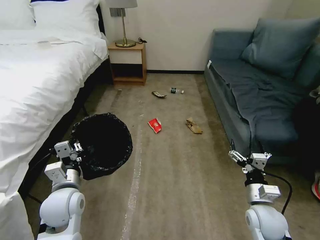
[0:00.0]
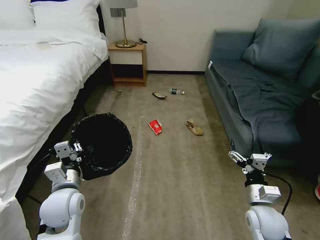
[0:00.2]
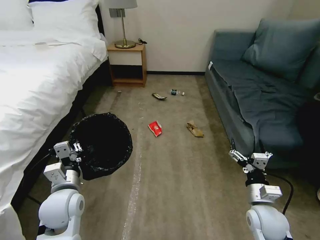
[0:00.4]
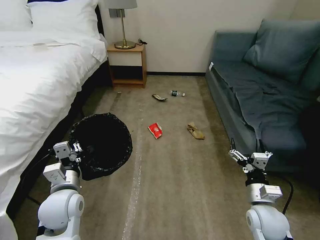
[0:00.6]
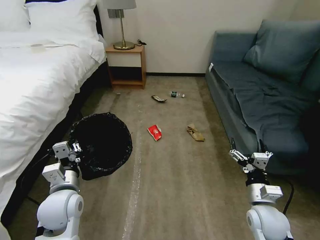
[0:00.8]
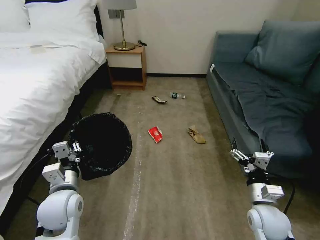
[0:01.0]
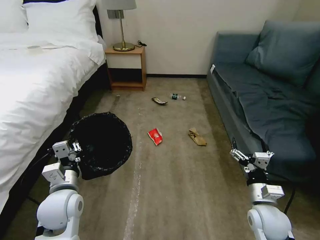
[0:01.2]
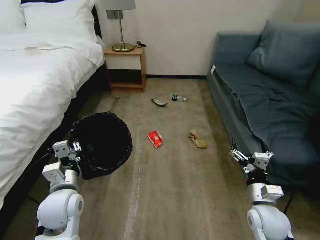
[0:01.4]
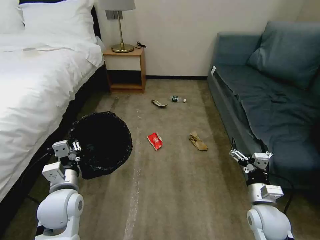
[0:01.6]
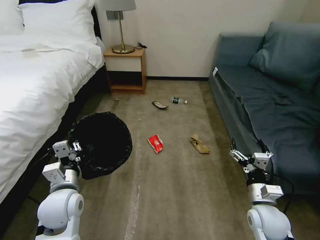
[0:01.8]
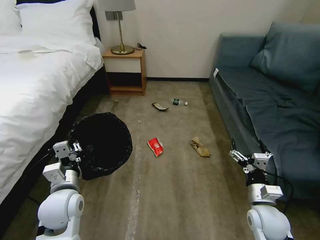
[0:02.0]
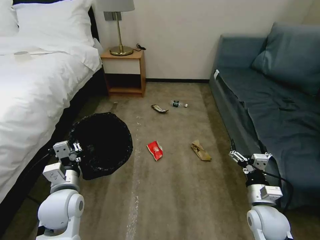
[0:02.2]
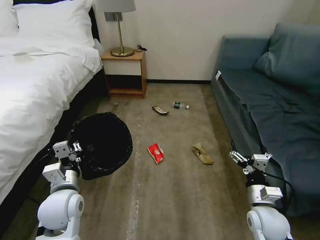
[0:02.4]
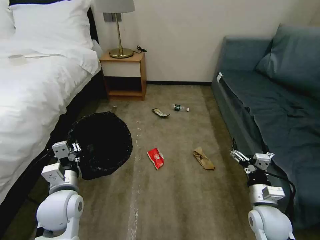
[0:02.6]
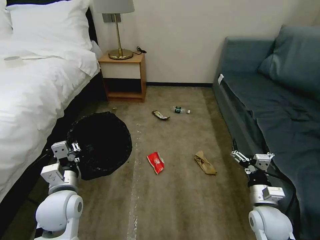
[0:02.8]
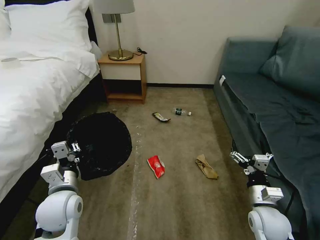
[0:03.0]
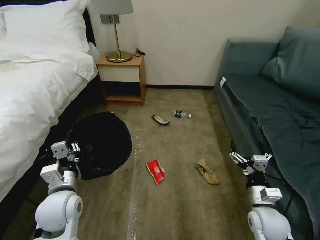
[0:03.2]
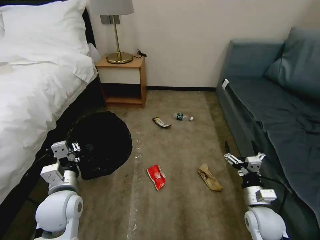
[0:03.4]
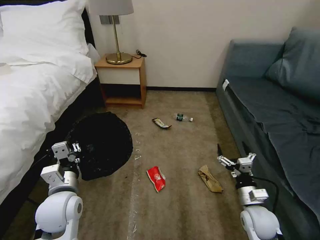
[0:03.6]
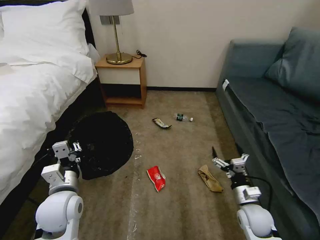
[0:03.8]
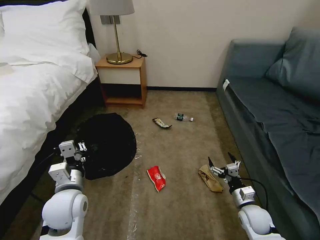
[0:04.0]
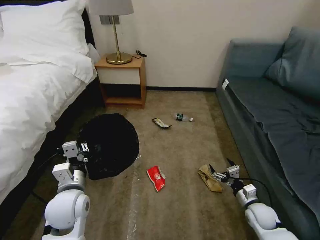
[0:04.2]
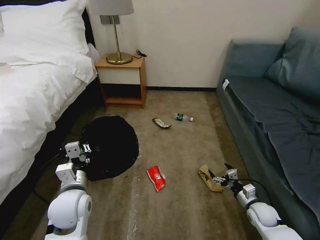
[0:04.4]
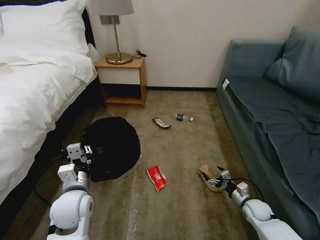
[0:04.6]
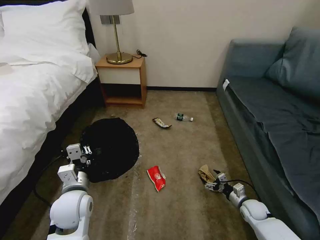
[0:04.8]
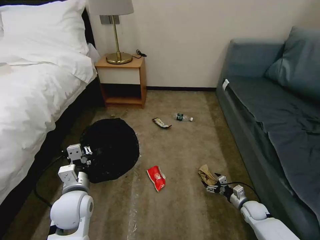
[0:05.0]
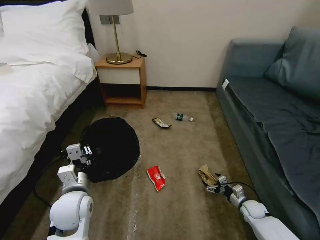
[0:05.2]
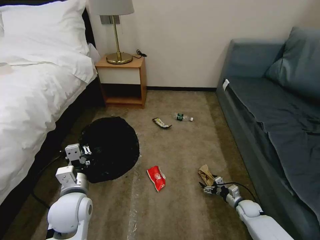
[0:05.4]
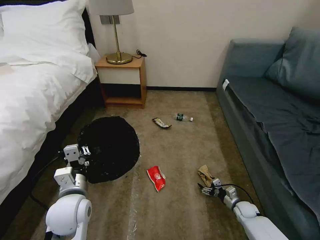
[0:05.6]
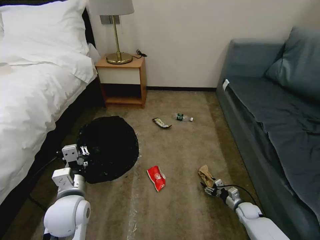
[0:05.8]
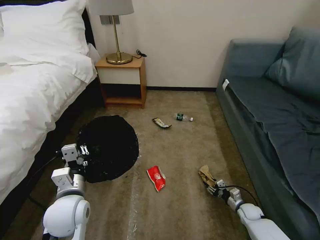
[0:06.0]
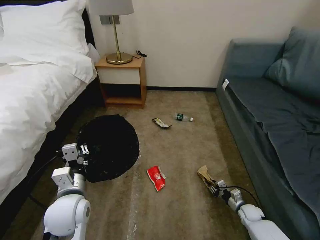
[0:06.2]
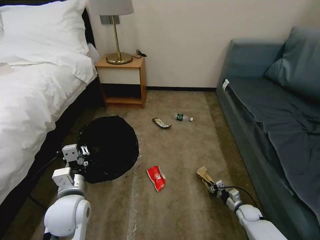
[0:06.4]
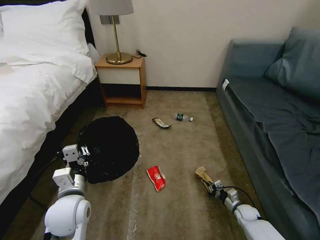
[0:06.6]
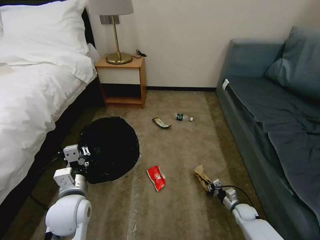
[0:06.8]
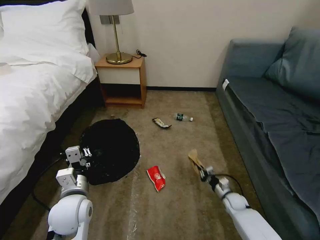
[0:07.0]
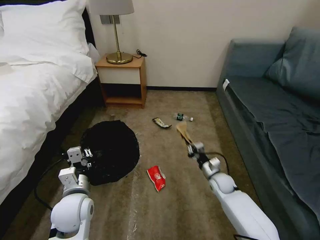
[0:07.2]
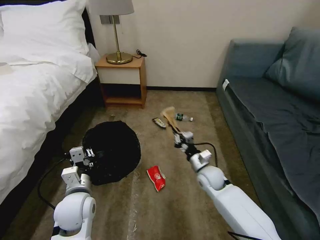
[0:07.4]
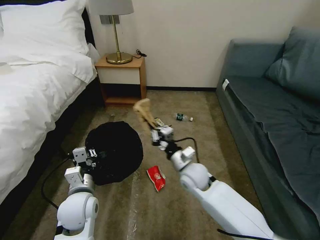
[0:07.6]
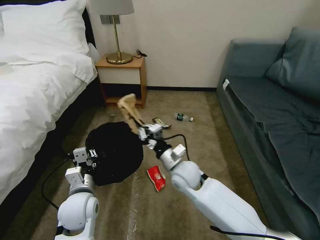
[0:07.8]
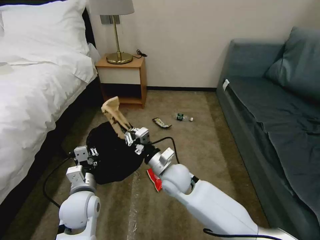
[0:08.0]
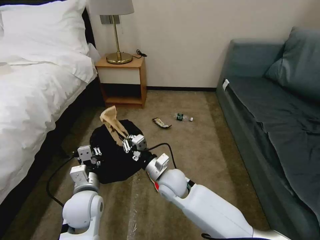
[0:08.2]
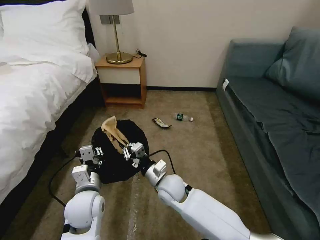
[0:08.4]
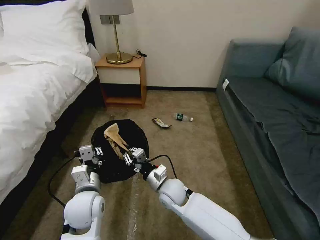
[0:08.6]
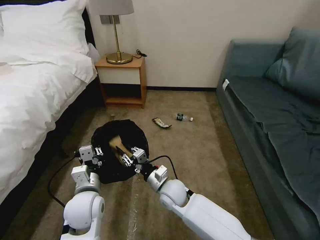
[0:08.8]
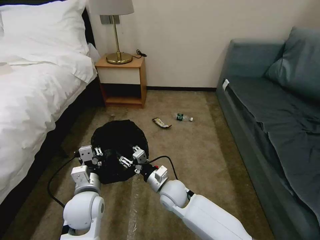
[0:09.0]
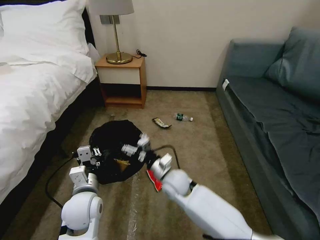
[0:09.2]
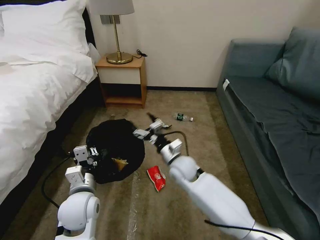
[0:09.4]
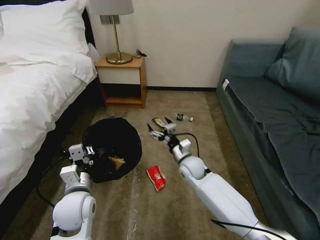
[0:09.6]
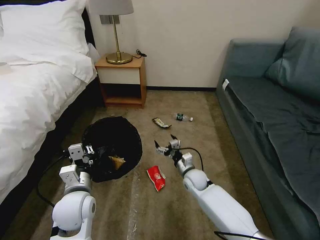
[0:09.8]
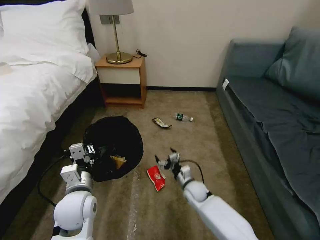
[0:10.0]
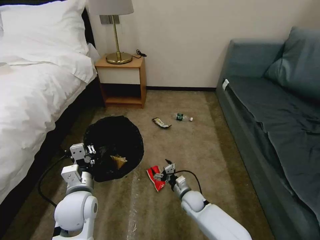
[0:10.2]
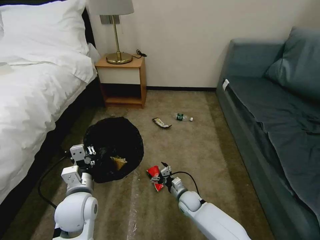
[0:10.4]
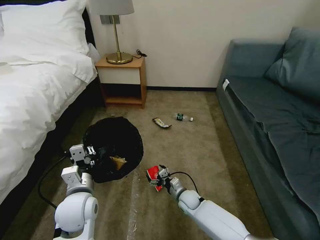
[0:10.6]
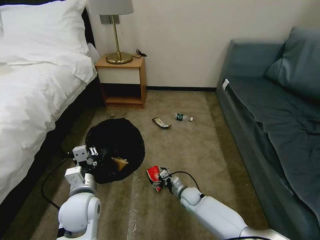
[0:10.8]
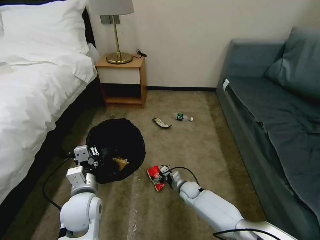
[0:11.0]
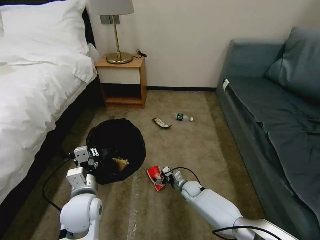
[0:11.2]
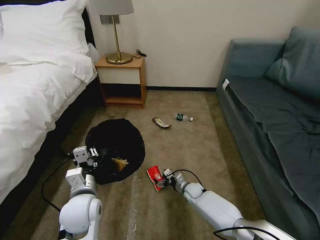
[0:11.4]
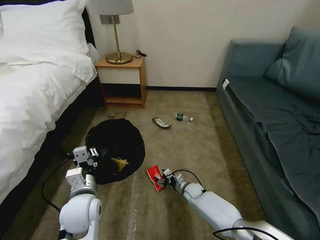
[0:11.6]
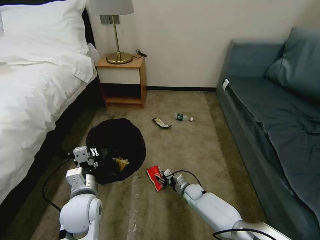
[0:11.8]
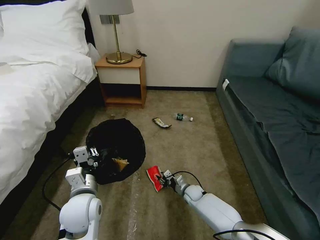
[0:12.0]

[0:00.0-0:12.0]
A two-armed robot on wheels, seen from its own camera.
Task of the whole recording: Pick up the trash bin, then pick up the garbage on the floor and place it into the trash bin.
0:03.0 to 0:04.4: The right gripper is displaced downward, to the right and forward by roughly 15 cm.
0:04.4 to 0:06.0: The right gripper shifts about 10 cm downward, and closes.
0:06.0 to 0:07.6: The right gripper moves to the left and upward, roughly 40 cm, and closes up.
0:07.6 to 0:09.0: The right gripper moves to the left, roughly 10 cm, and opens its fingers.
0:09.0 to 0:10.4: The right gripper shifts some 20 cm downward and to the right, and opens.
0:10.4 to 0:12.0: The right gripper ends up approximately 10 cm from where it was, and closes up.

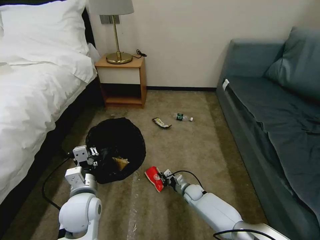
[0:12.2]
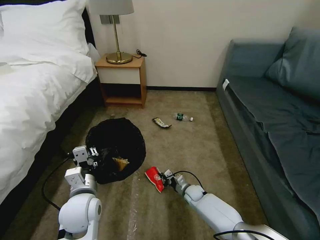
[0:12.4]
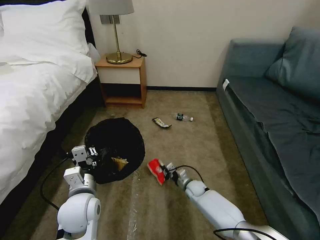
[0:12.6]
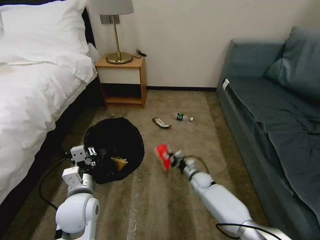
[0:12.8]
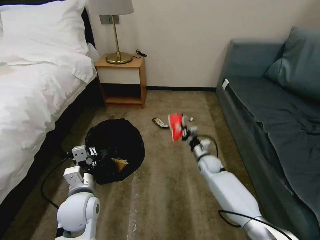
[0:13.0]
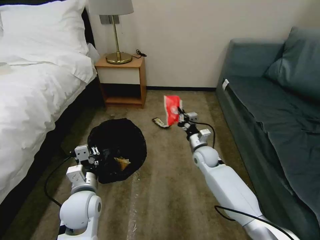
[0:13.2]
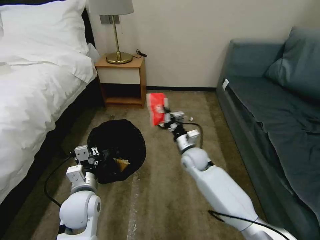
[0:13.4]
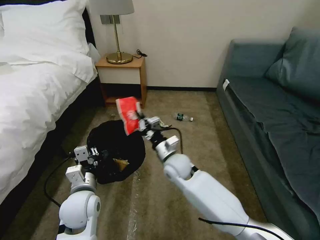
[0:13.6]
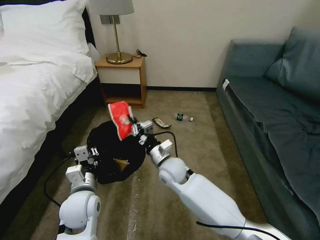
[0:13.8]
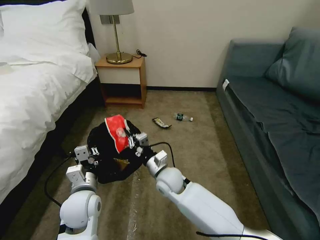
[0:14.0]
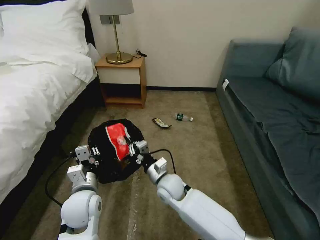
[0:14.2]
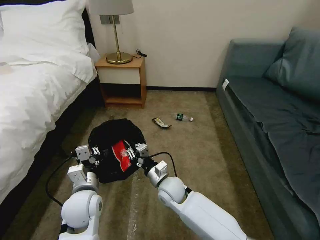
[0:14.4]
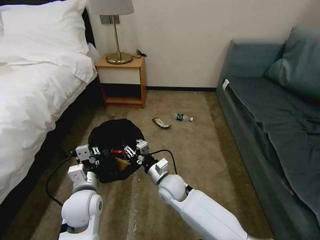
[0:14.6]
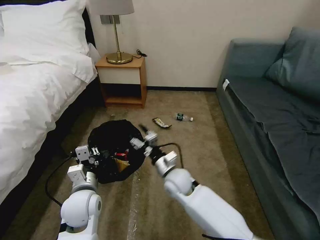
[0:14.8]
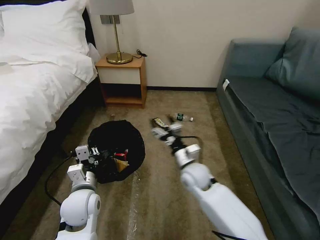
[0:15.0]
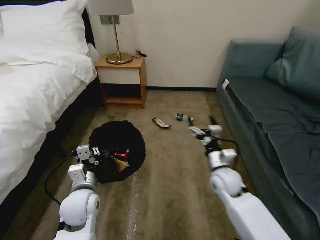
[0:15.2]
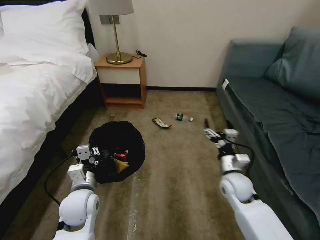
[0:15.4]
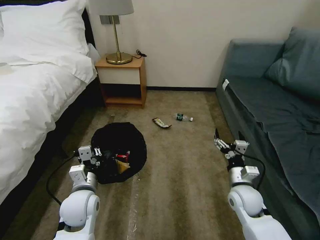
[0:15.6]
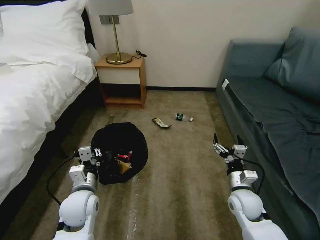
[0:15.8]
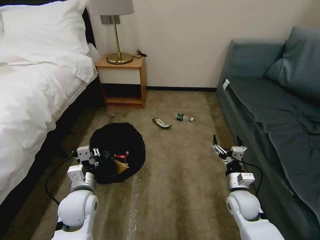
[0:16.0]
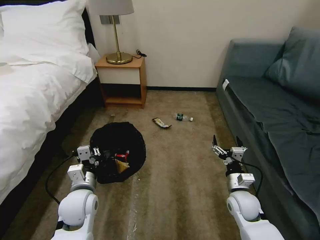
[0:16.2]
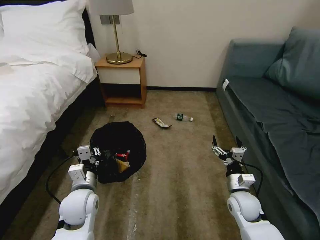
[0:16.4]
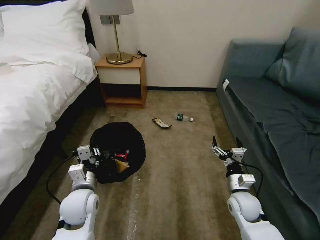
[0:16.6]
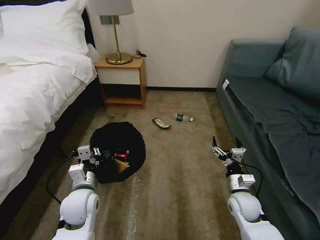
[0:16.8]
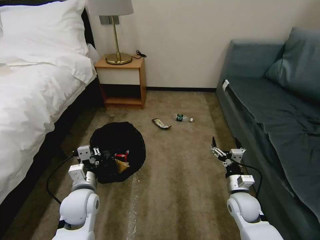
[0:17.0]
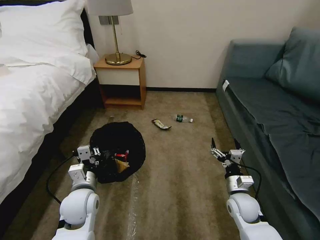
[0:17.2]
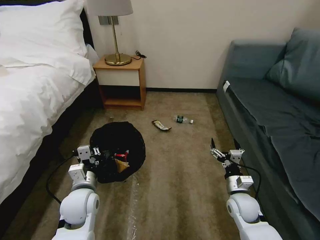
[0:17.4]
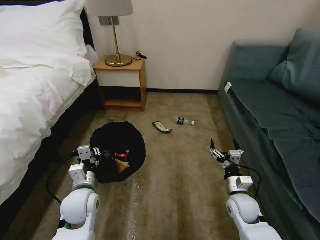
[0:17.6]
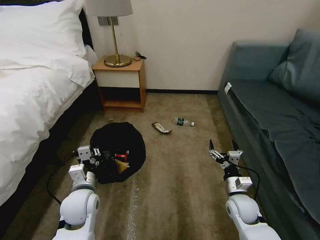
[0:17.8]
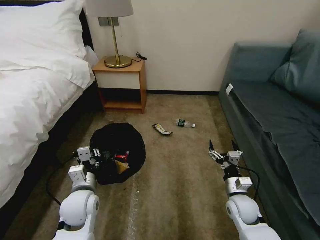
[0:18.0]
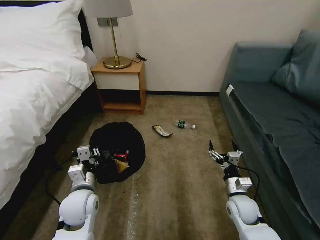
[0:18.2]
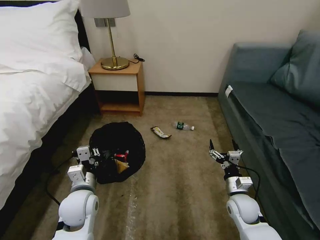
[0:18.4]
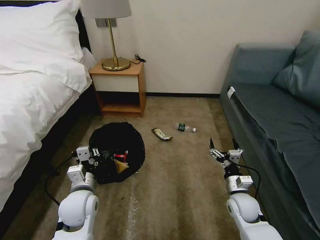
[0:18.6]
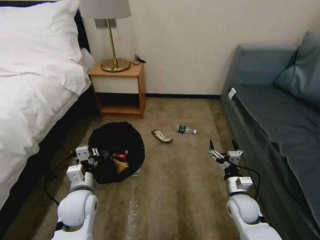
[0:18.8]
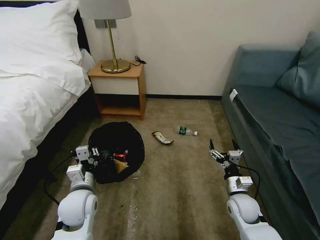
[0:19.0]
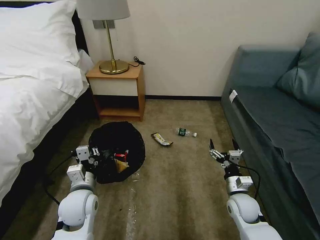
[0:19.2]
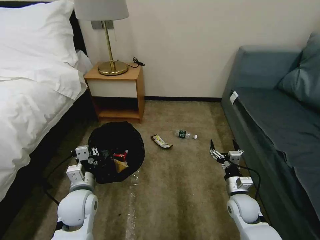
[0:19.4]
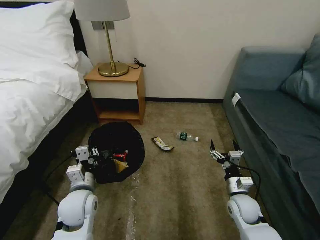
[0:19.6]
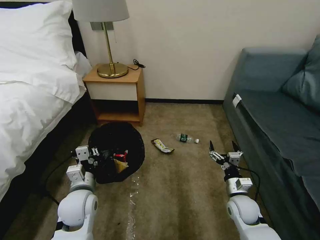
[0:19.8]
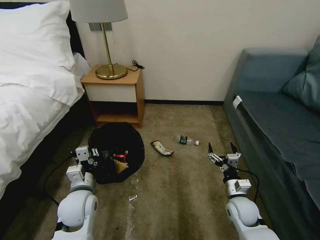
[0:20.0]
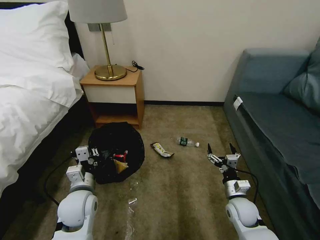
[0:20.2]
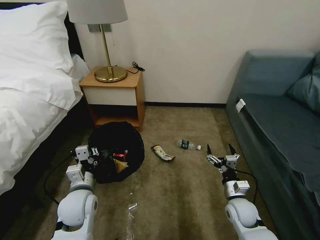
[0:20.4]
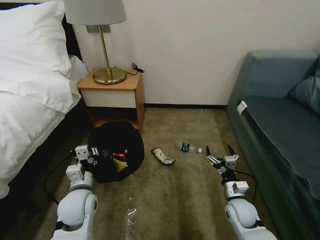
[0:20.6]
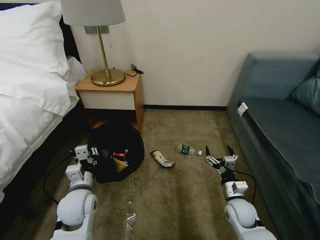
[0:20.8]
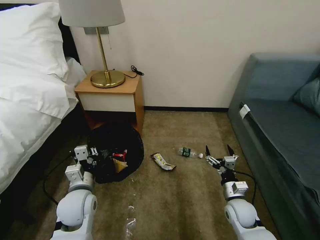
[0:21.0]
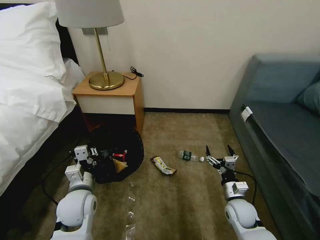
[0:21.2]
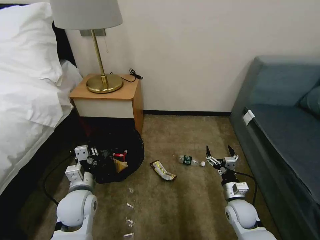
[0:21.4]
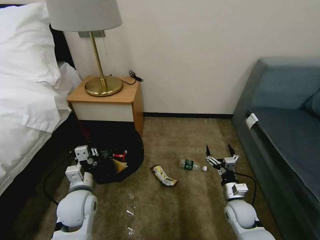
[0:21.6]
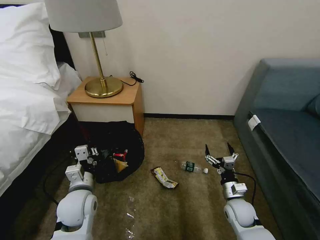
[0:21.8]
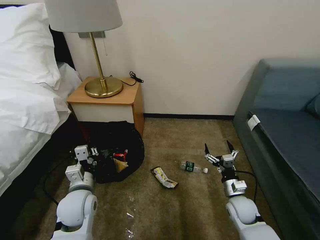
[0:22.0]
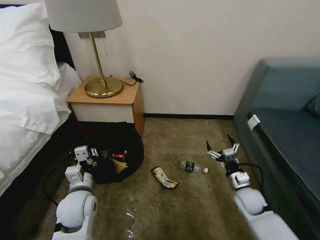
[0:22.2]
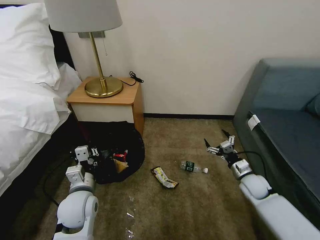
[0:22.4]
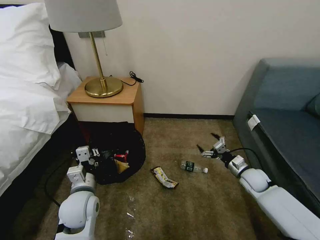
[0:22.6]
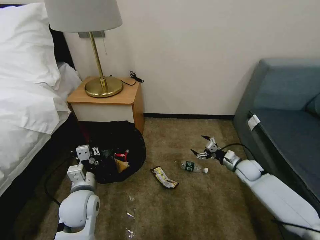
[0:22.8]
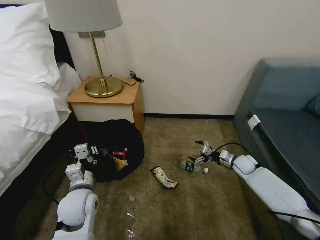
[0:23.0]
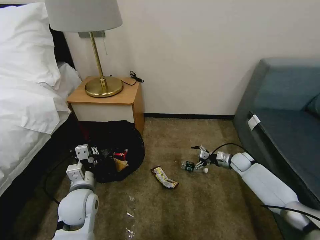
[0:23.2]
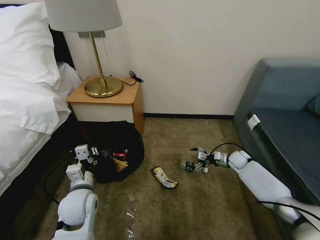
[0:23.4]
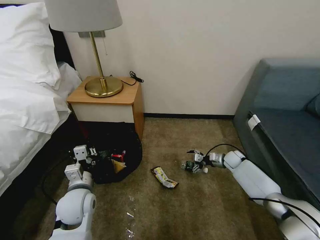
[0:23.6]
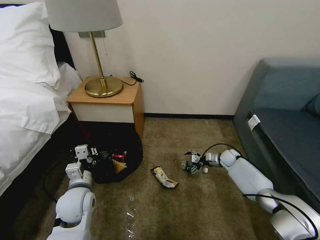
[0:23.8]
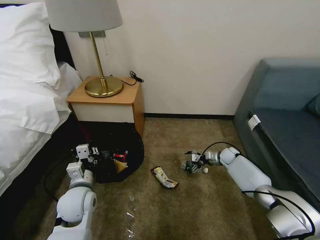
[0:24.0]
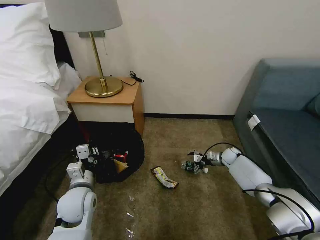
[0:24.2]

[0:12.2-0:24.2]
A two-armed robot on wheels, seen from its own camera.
Task of the whole recording: Pick up the trash bin, then pick up the garbage on the floor and place it into the trash bin.
0:12.2 to 0:13.8: The right gripper shifts roughly 30 cm upward and to the left.
0:13.8 to 0:15.2: The right gripper shifts some 20 cm to the right, and opens its fingers.
0:15.2 to 0:16.6: The right gripper travels to the right, downward and backward by some 10 cm.
0:16.6 to 0:18.2: There are only small adjustments of the grippers.
0:18.2 to 0:19.8: The two grippers keep their place.
0:21.2 to 0:22.6: The right gripper is displaced forward and to the right by about 15 cm.
0:22.6 to 0:24.2: The right gripper is displaced forward and downward by approximately 15 cm.
